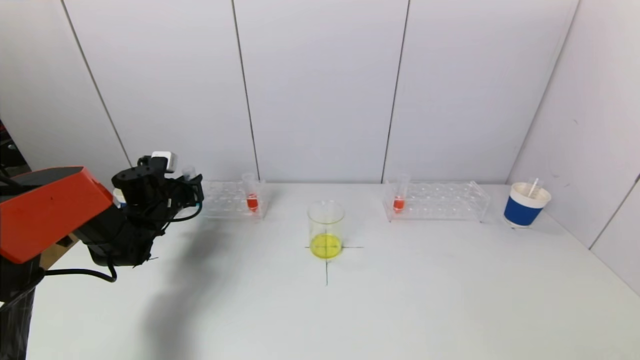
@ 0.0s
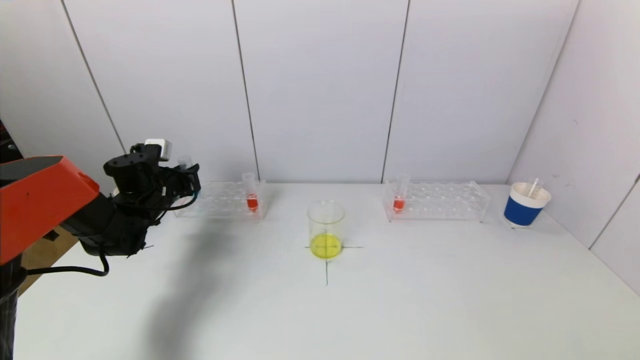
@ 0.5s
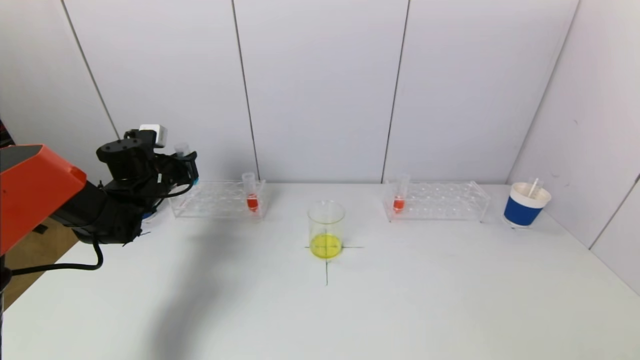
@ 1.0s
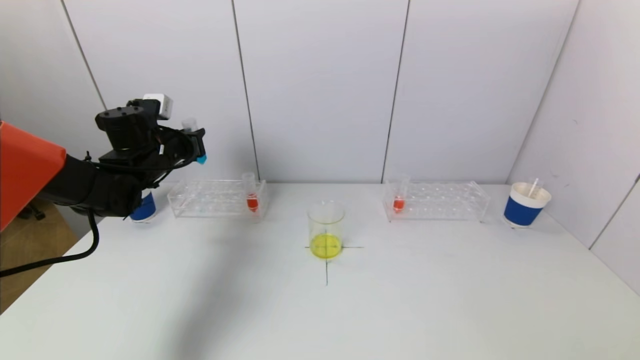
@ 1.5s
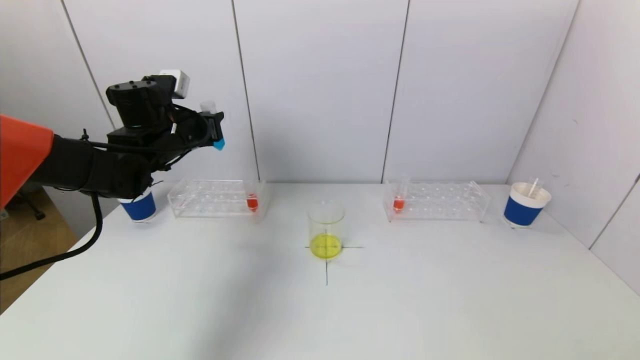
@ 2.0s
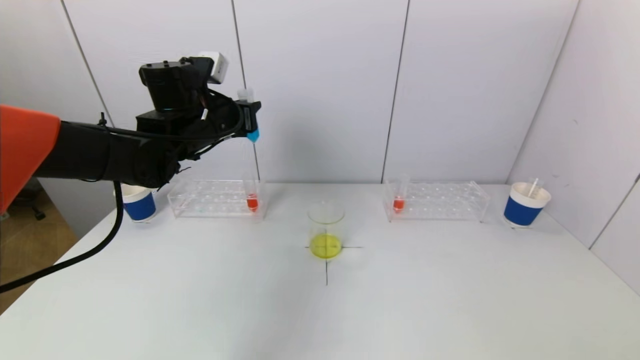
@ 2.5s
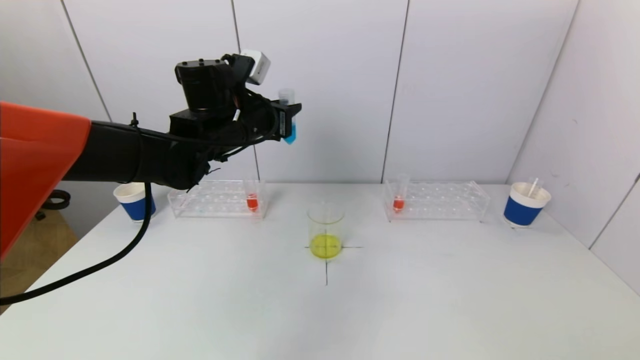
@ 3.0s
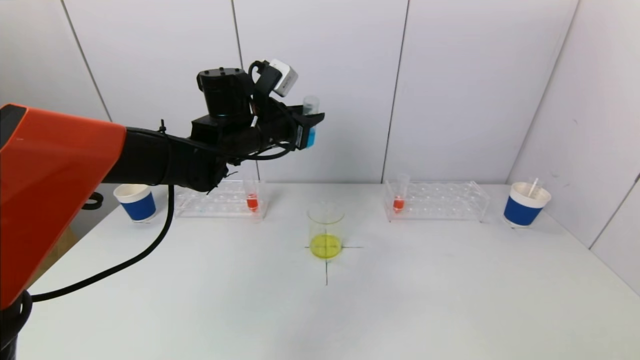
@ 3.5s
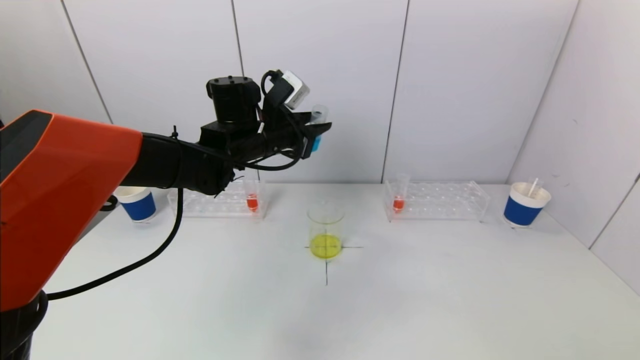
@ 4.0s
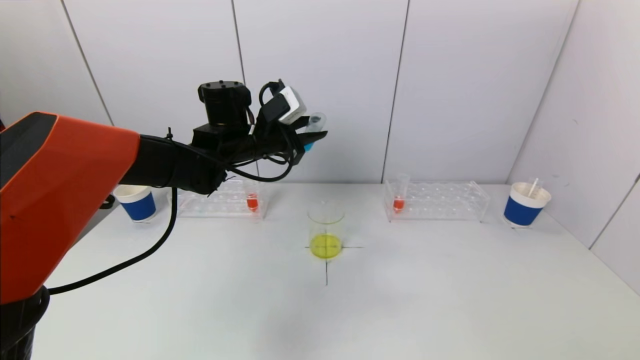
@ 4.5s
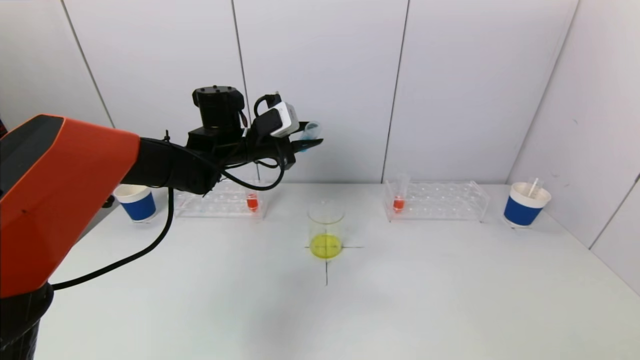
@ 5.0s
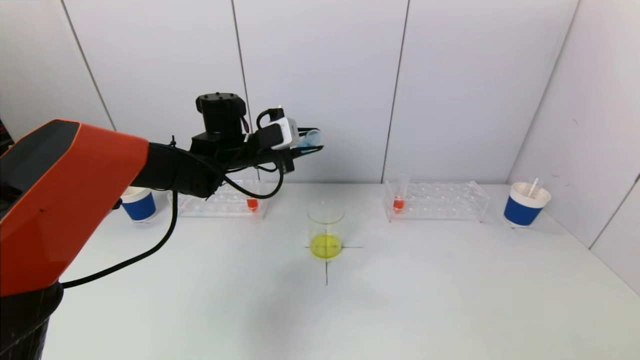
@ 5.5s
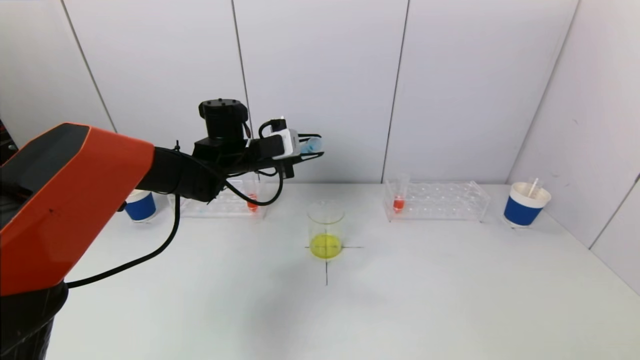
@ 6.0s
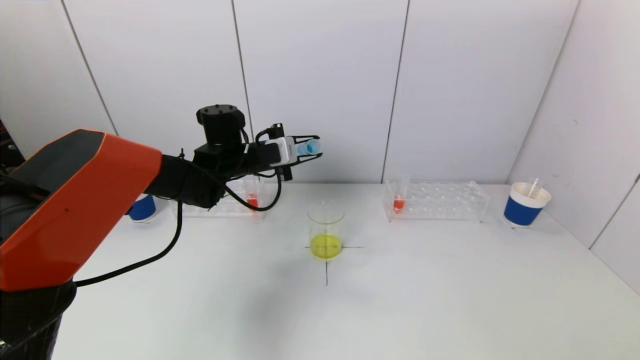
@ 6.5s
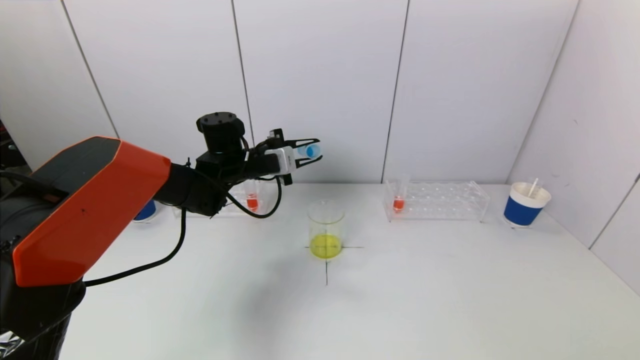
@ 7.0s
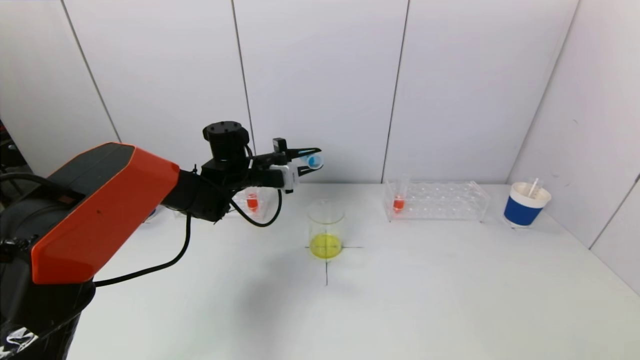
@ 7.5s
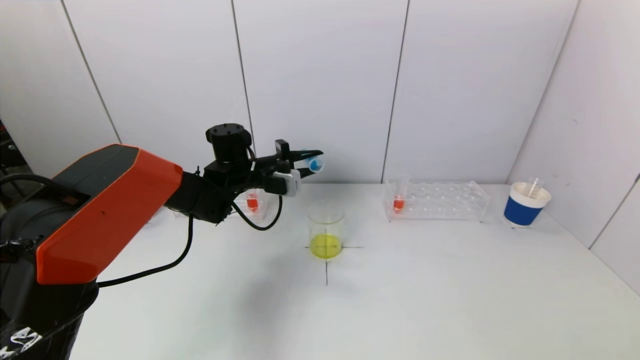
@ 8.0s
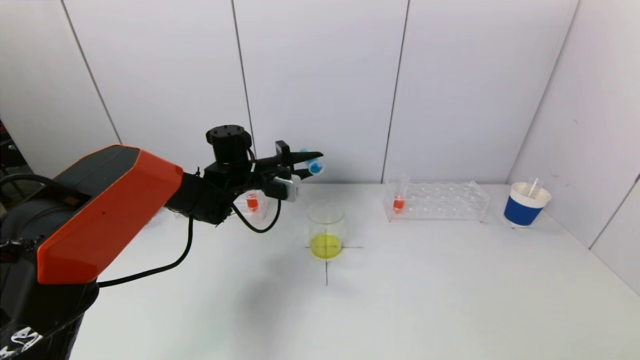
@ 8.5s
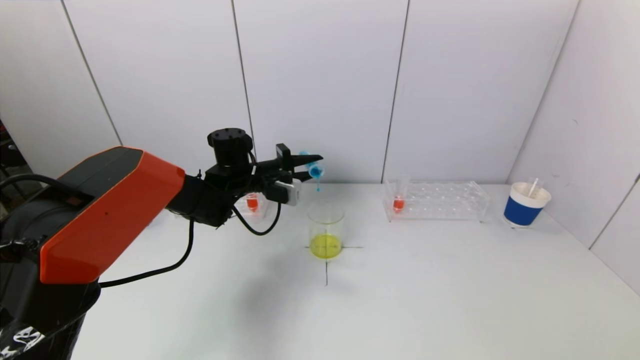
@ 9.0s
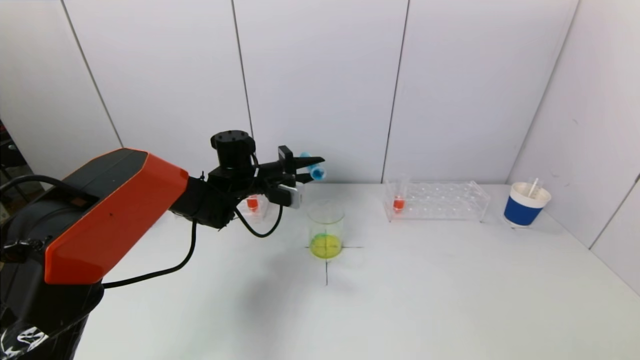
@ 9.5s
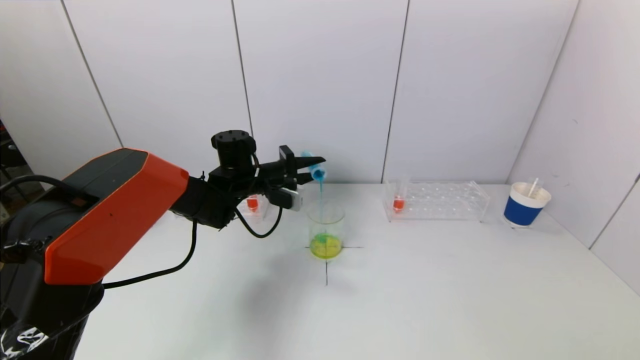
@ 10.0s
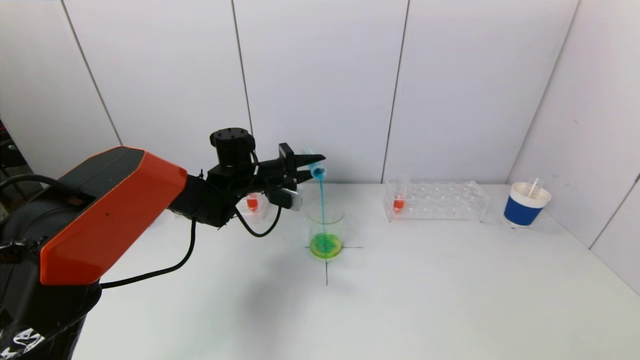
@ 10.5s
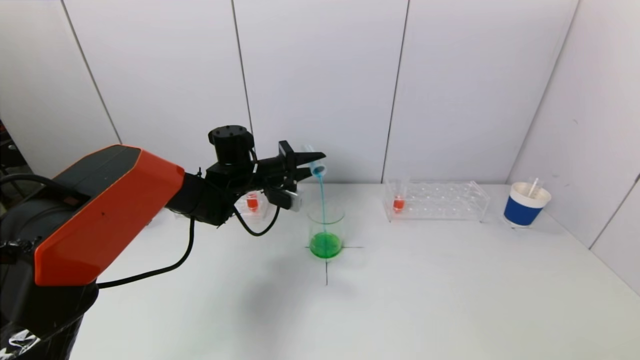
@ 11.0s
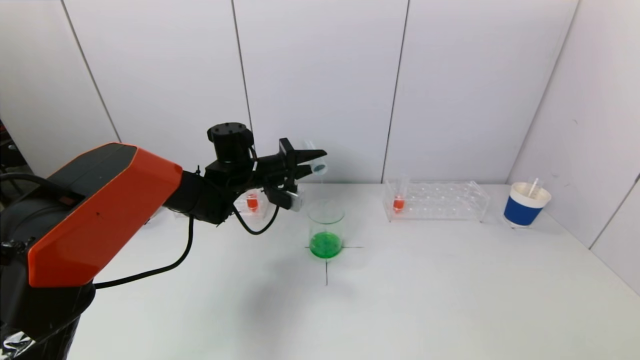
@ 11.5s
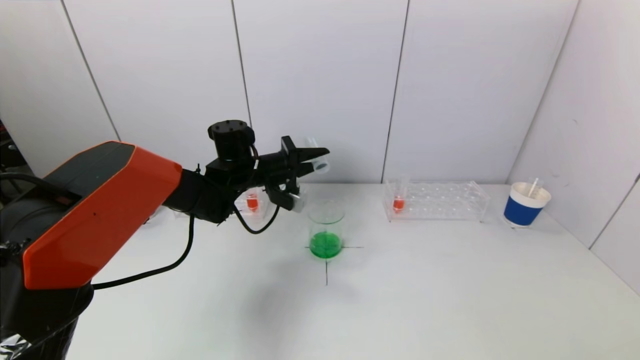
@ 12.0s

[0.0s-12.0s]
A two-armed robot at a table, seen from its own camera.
Task of the whole recording: pick up a test tube with pigment on left test tube rack and a test tube with pigment on right test tube rack by grippers and pour them into the beaker.
0.0s to 2.0s: The left gripper moves upward and to the right, approximately 15 cm.
2.0s to 4.0s: The left gripper shifts about 15 cm to the right.
4.0s to 6.0s: The left gripper ends up some 5 cm from where it was.
8.0s to 10.0s: The grippers move only a little.
10.0s to 12.0s: The grippers move only a little.

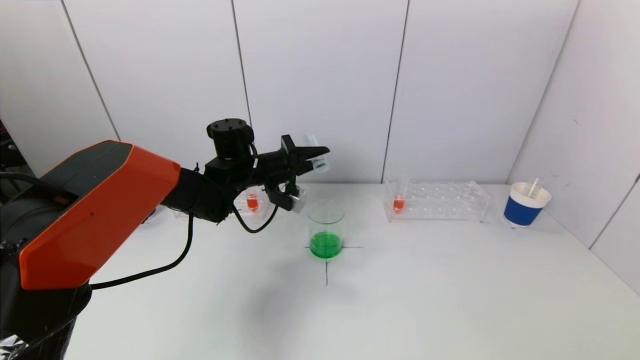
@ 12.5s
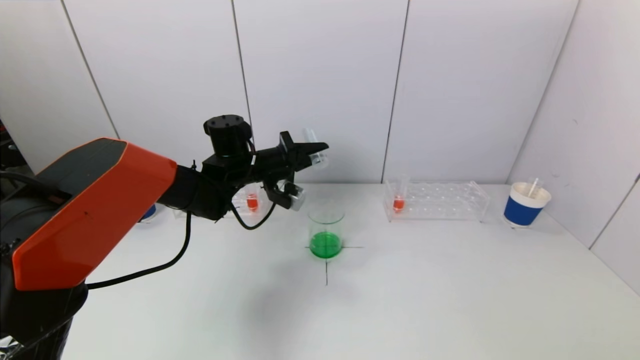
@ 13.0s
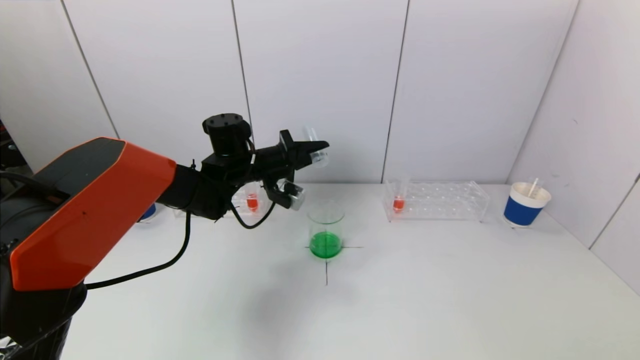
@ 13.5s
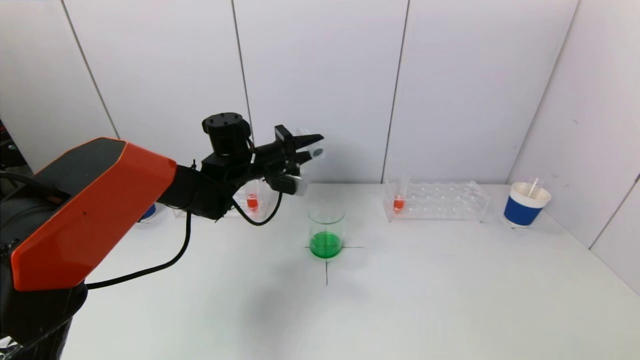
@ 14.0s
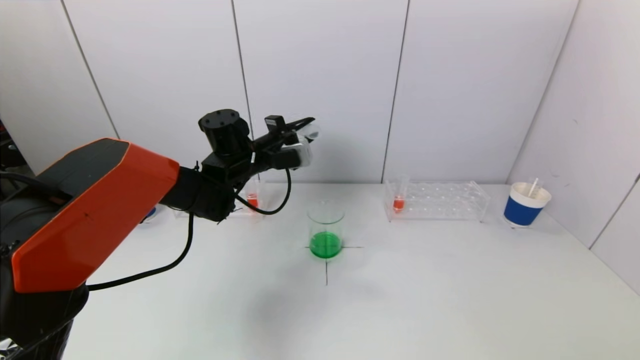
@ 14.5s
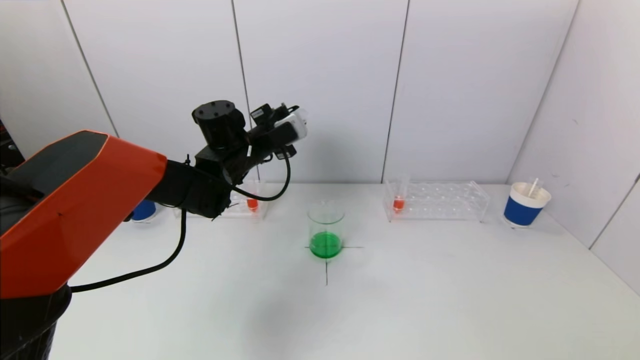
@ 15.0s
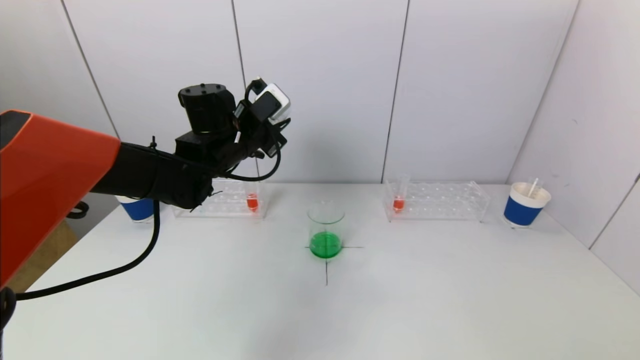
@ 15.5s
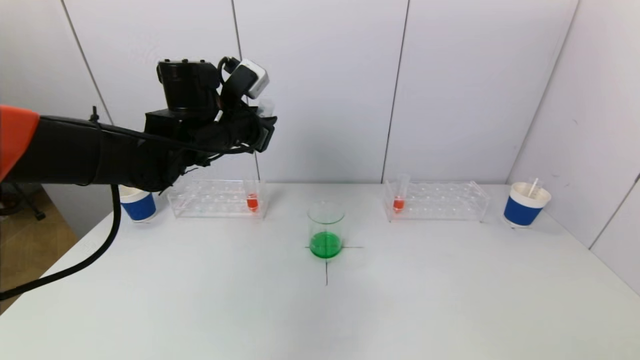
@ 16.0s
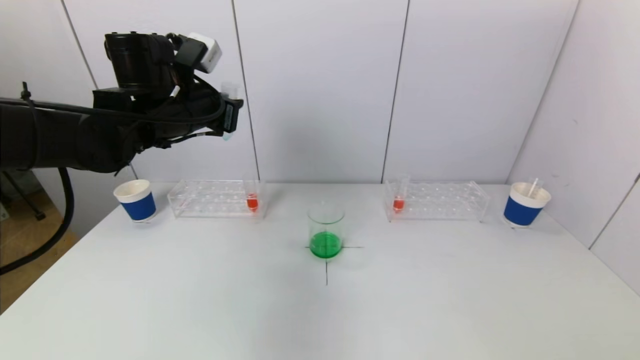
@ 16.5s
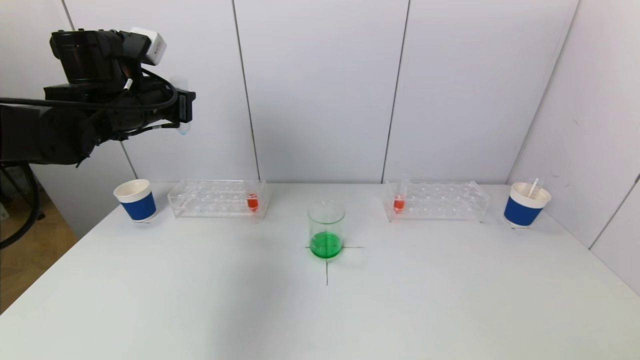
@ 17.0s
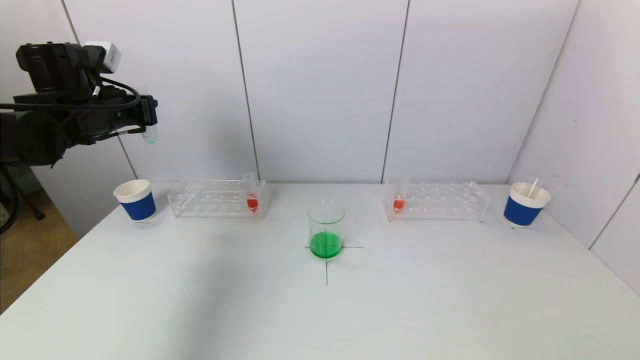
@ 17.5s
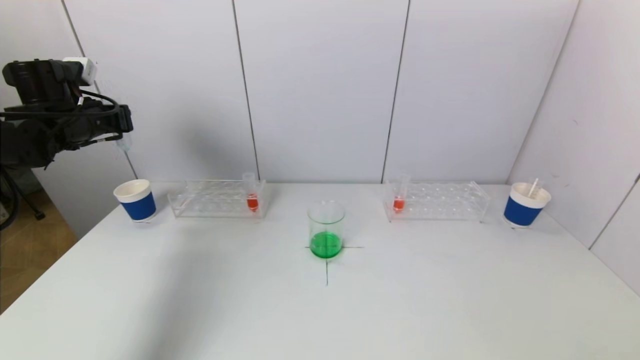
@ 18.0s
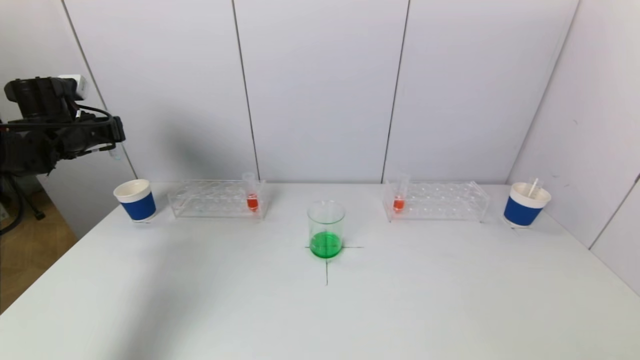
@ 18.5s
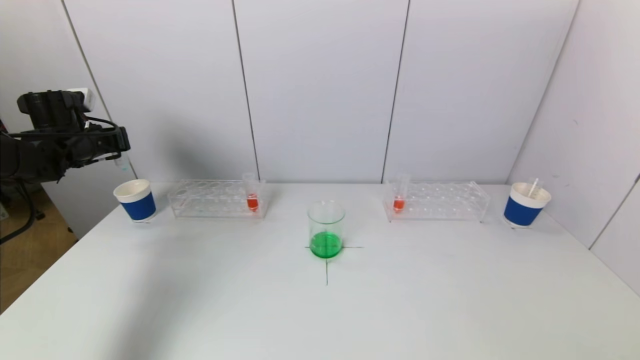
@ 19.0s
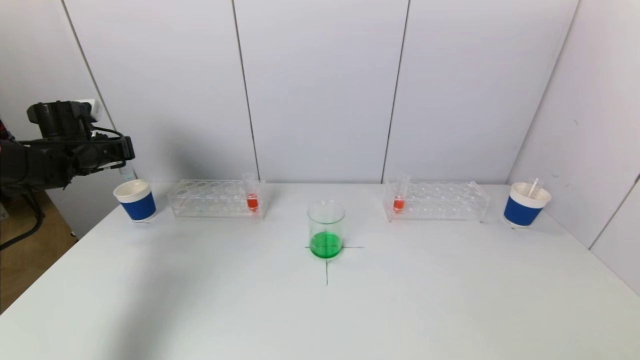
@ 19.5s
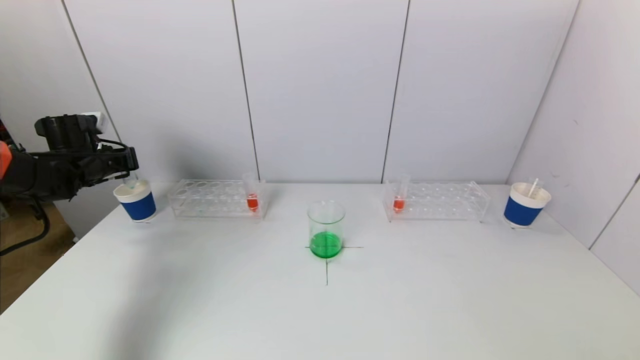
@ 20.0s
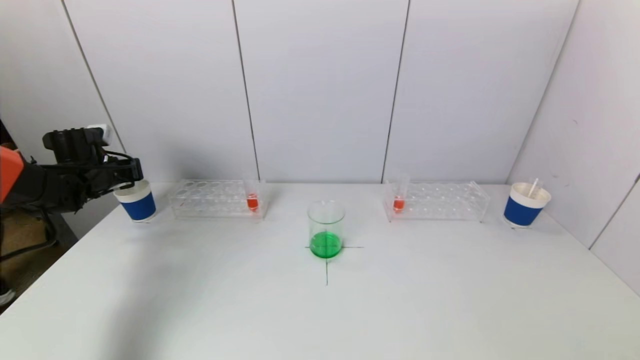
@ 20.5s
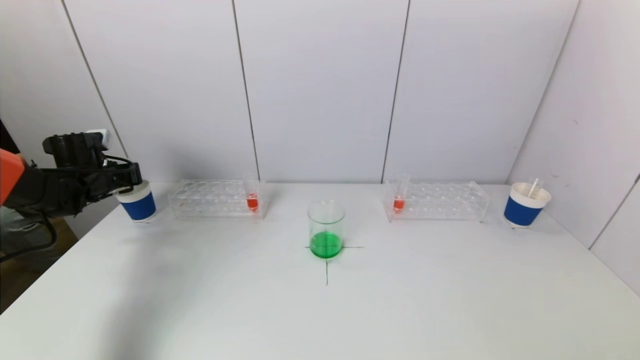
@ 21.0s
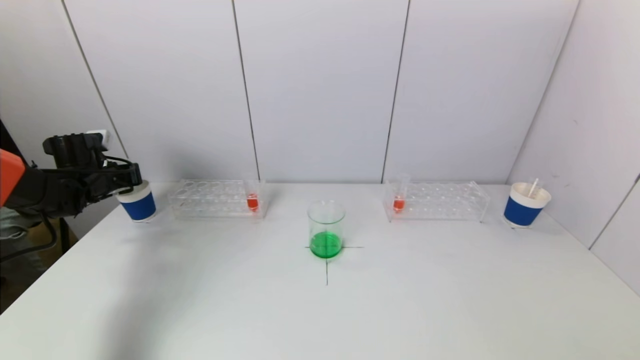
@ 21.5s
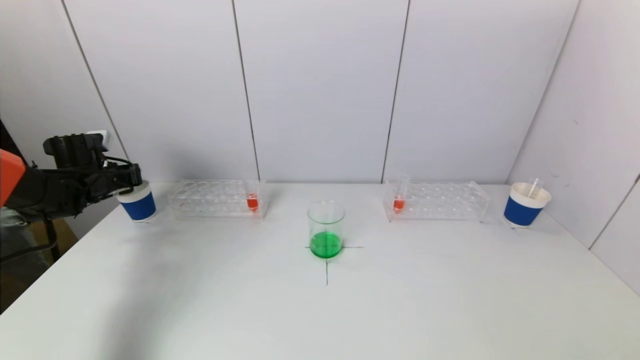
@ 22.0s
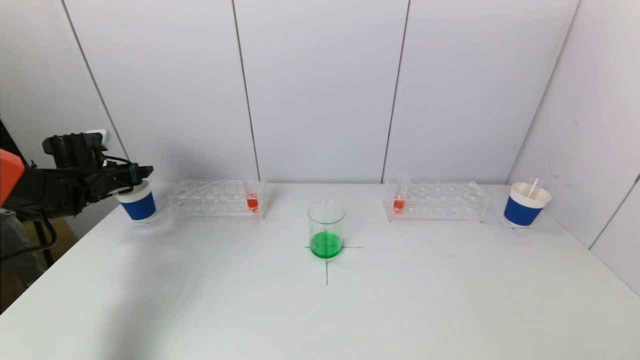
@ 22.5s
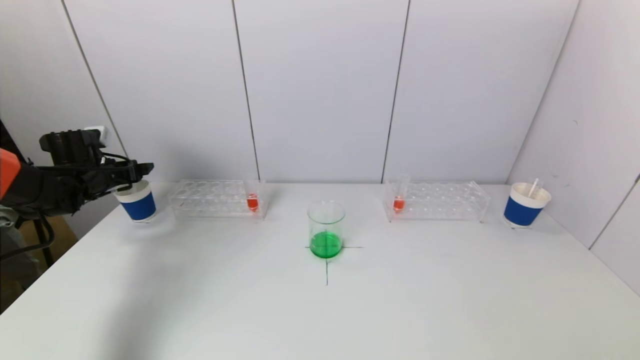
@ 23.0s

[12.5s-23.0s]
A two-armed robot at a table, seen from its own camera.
Task of the whole recording: pick up a test tube with pigment on left test tube rack and a test tube with pigment on right test tube rack by grippers and pour them into the beaker.
Step, 13.0s to 22.0s: Place the test tube into the paper cup with the left gripper.
14.5s to 16.5s: The left gripper is displaced upward, to the left and backward by approximately 15 cm.
16.5s to 19.0s: The left gripper goes some 25 cm to the left.
19.0s to 21.0s: The left gripper goes roughly 10 cm downward.
21.0s to 23.0s: The left gripper opens up.
